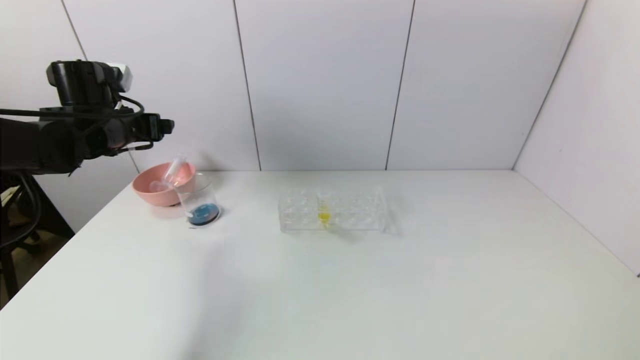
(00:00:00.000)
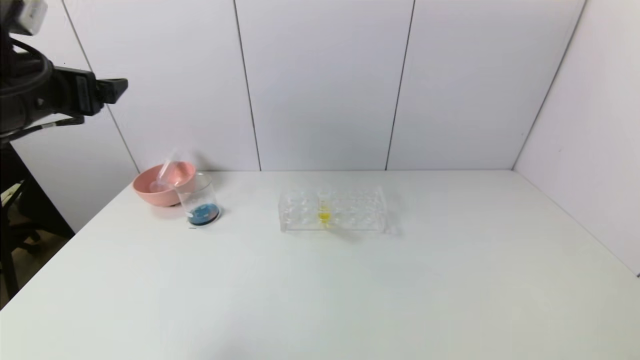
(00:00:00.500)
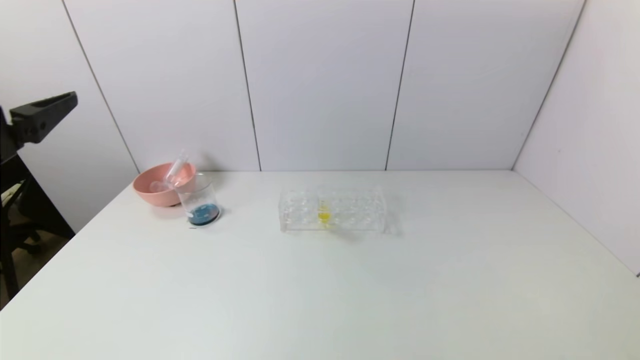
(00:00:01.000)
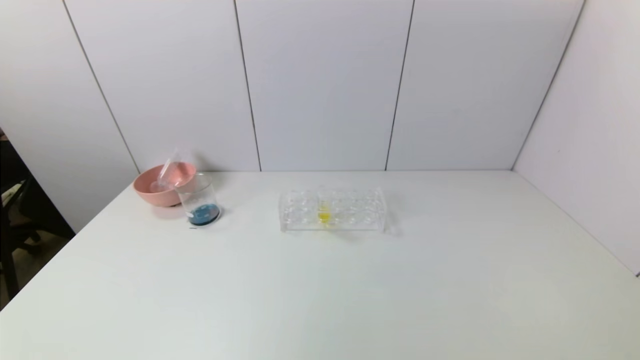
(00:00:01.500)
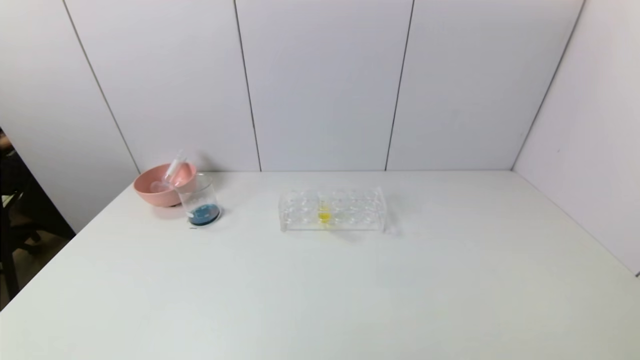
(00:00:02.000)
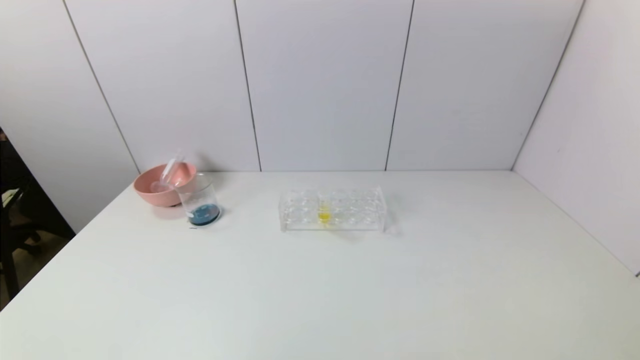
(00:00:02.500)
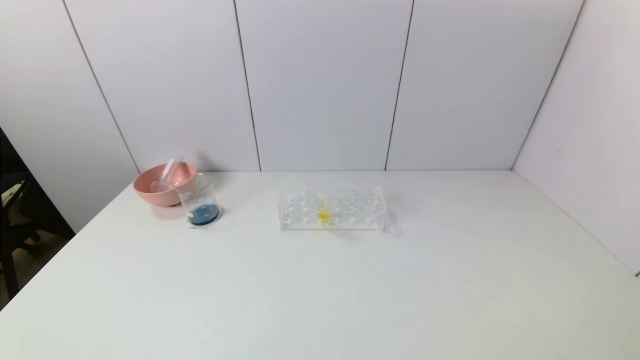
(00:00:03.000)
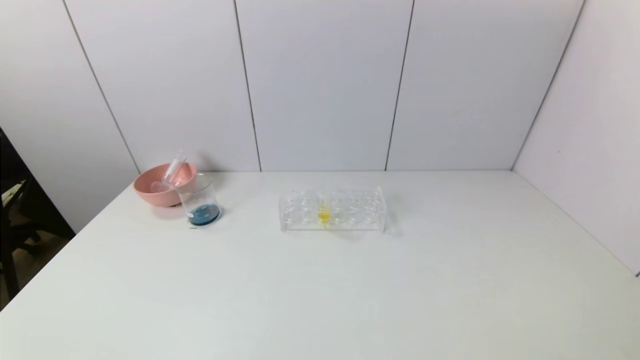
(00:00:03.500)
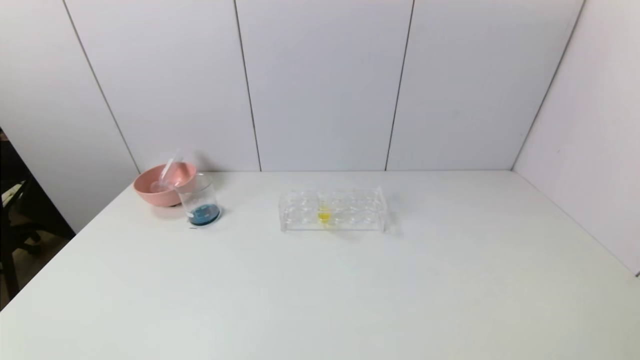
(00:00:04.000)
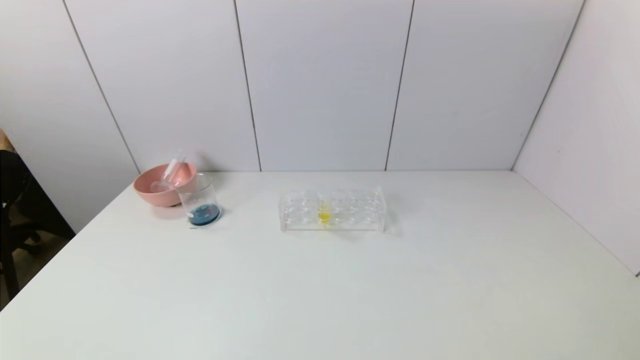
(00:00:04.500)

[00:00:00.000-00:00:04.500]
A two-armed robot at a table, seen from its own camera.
Task of the whole recording: pick up the test tube with red pigment and the test tube with blue pigment by grippers and pour them into the container.
00:00:00.000 to 00:00:02.000: The left gripper is displaced backward by approximately 50 cm.
